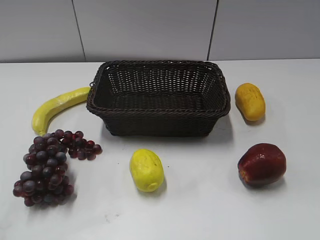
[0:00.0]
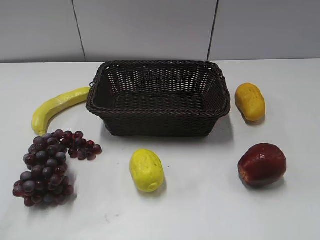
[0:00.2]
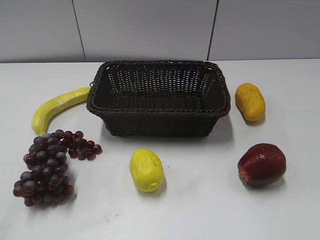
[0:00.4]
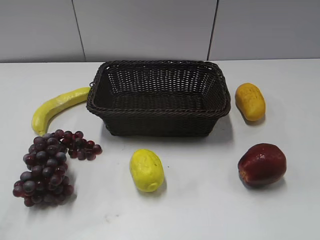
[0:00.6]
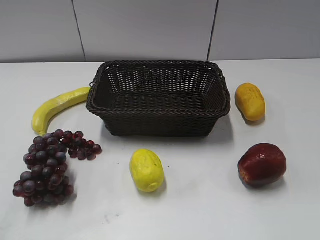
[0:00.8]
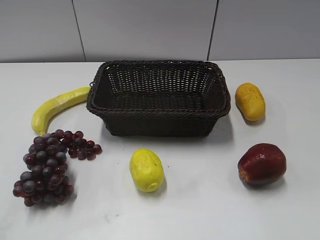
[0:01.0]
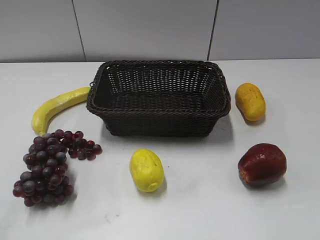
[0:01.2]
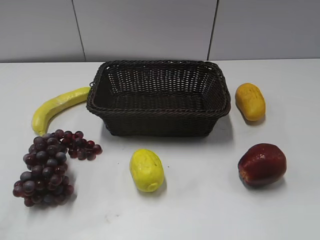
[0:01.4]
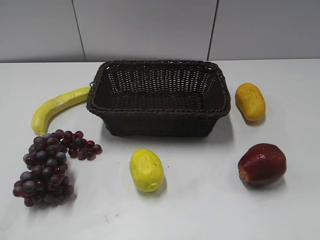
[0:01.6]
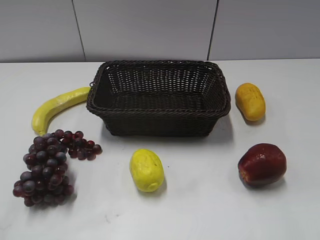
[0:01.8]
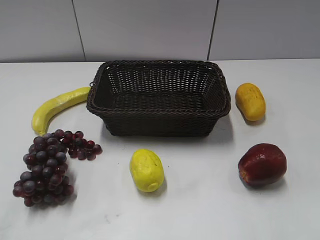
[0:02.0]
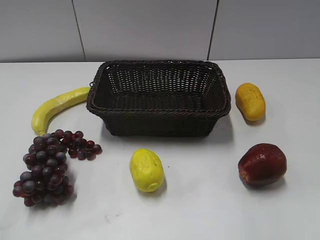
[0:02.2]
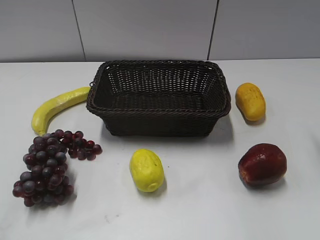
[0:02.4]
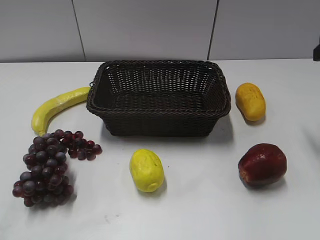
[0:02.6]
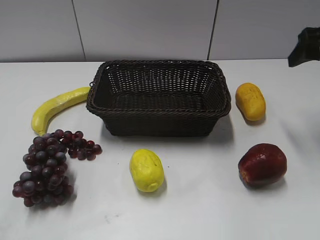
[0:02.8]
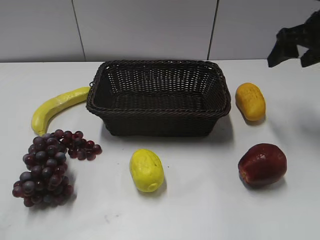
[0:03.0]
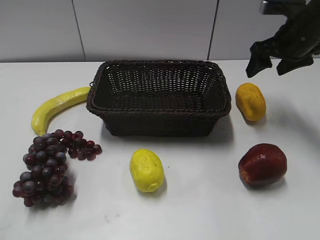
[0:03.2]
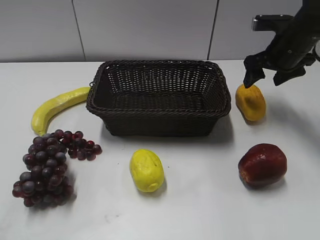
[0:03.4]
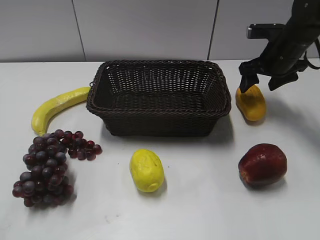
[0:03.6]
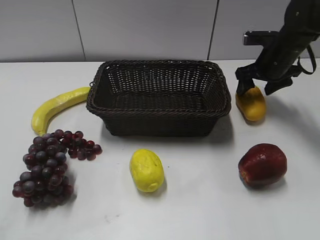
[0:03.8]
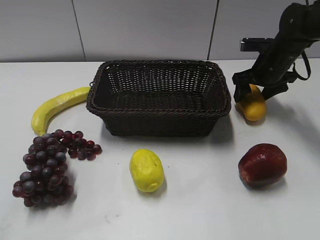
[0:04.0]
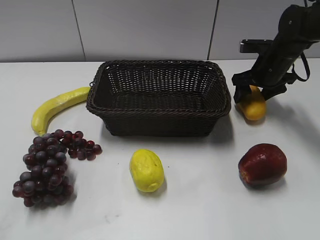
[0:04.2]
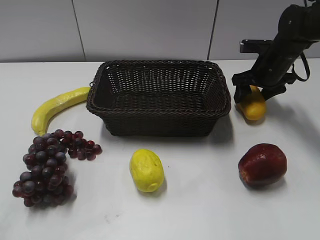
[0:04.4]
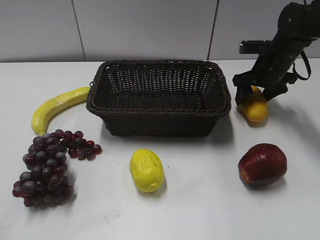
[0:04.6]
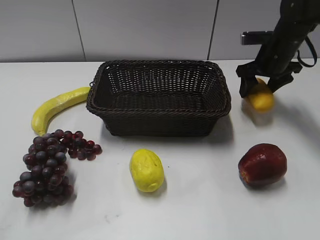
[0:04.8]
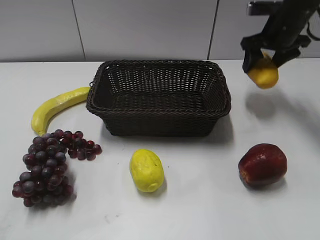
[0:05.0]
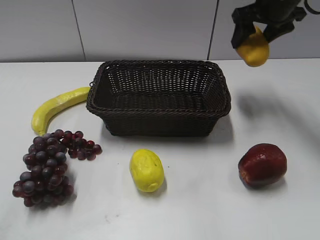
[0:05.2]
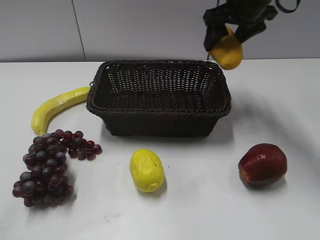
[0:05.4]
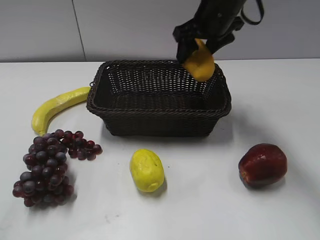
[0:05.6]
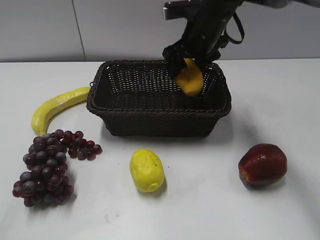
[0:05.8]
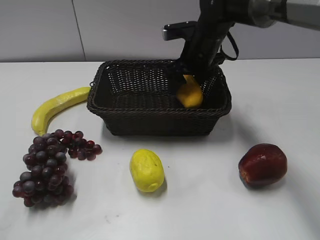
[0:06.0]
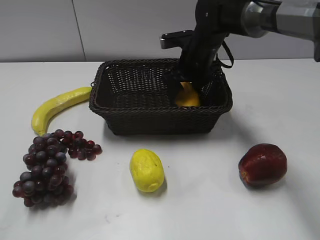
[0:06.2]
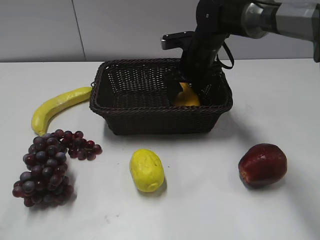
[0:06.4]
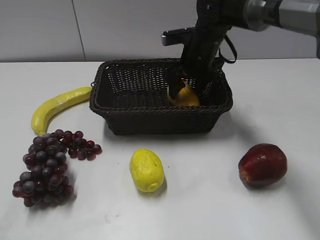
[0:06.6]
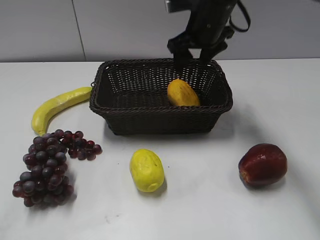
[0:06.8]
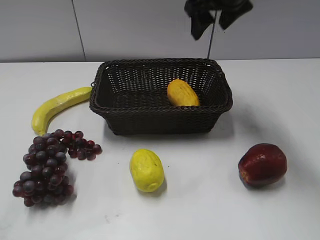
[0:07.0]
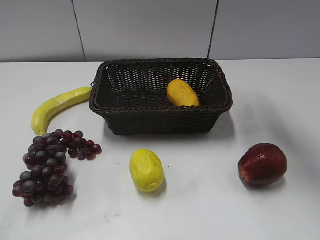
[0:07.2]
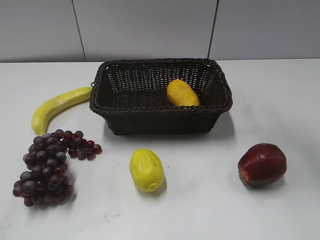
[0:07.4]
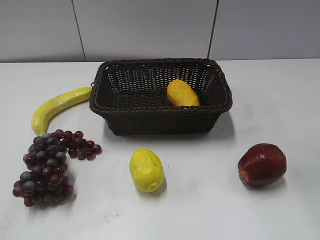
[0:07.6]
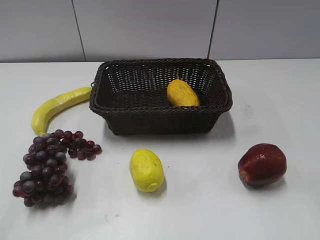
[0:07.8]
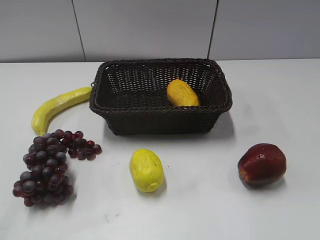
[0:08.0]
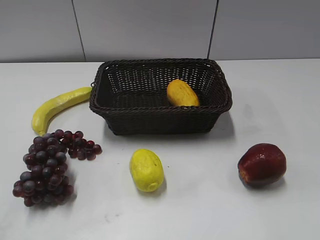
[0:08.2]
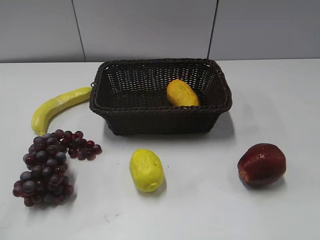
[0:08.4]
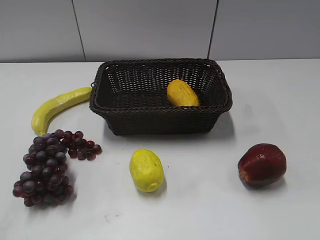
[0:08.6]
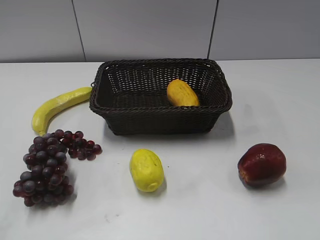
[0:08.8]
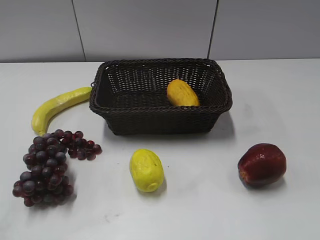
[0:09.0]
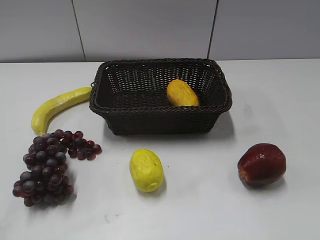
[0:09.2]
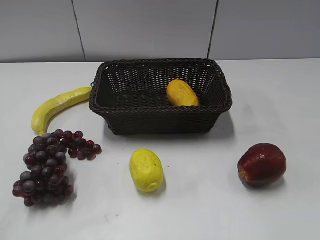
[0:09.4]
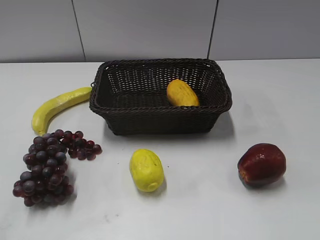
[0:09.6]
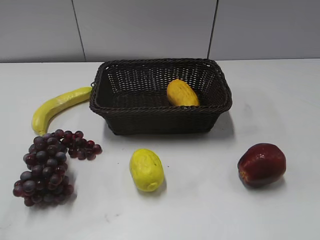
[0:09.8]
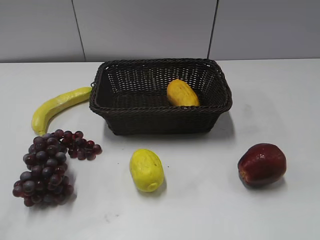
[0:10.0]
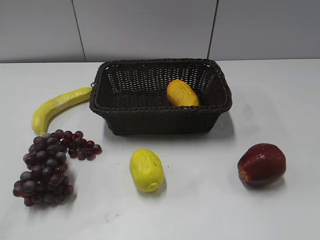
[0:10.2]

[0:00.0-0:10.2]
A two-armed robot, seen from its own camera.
Step, 0:02.6 to 0:04.2: Grasp the mango with right gripper.
Step, 0:04.4 to 0:06.4: Place the mango in the basket with right gripper.
0:01.4 to 0:03.0: The right gripper heads forward, covering roughly 40 cm.
0:03.0 to 0:04.4: The right gripper is displaced downward and forward by approximately 15 cm.
0:04.4 to 0:05.8: The right gripper travels to the left and upward by roughly 20 cm.
0:05.8 to 0:07.2: The right gripper heads upward, covering some 20 cm.
0:07.2 to 0:08.8: The right gripper goes some 35 cm backward and to the right.
